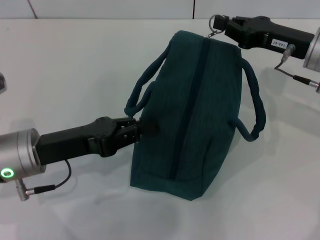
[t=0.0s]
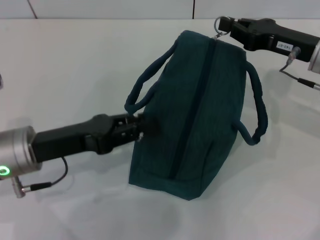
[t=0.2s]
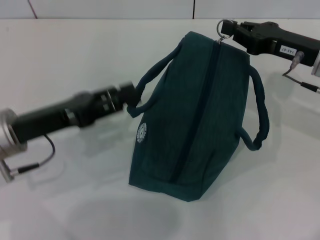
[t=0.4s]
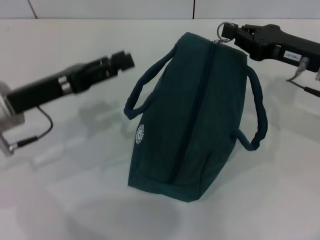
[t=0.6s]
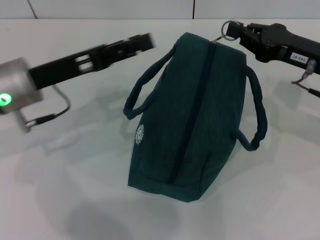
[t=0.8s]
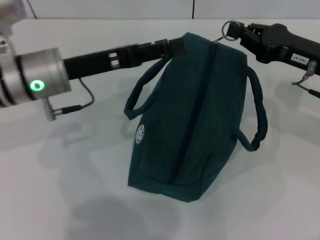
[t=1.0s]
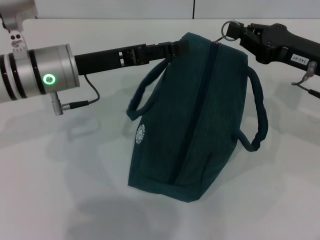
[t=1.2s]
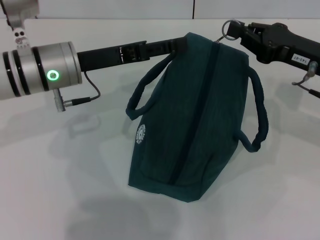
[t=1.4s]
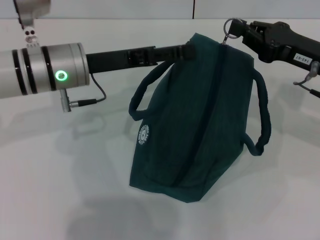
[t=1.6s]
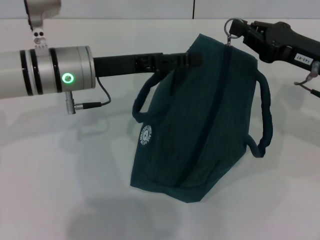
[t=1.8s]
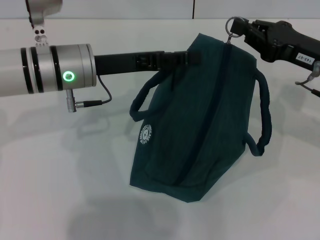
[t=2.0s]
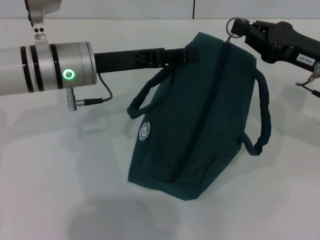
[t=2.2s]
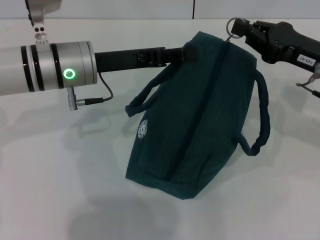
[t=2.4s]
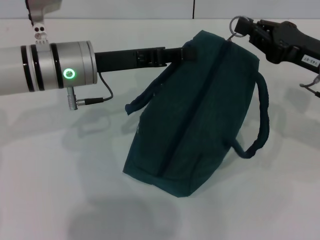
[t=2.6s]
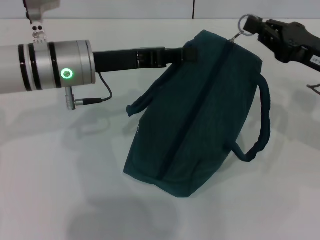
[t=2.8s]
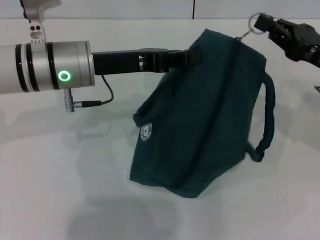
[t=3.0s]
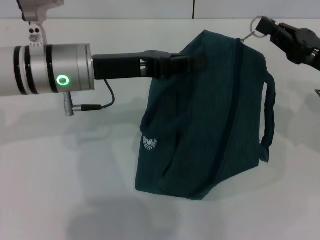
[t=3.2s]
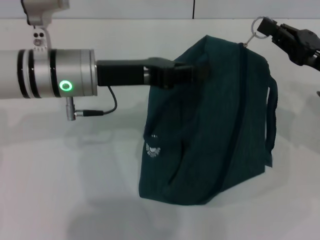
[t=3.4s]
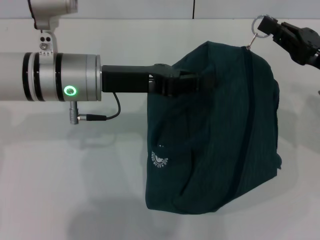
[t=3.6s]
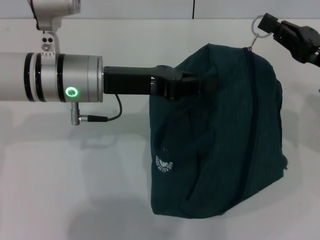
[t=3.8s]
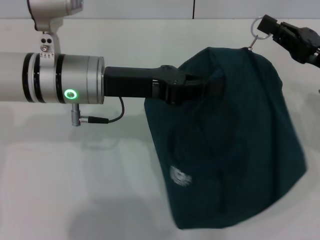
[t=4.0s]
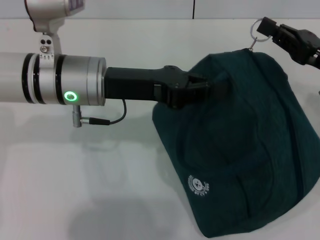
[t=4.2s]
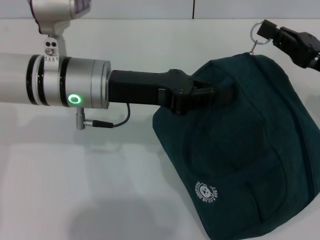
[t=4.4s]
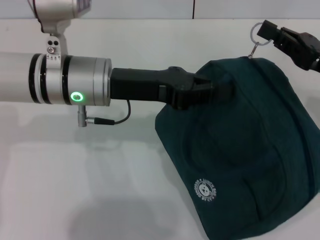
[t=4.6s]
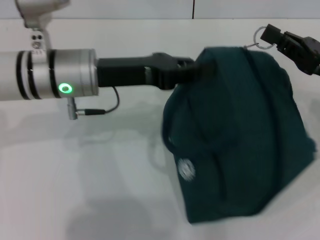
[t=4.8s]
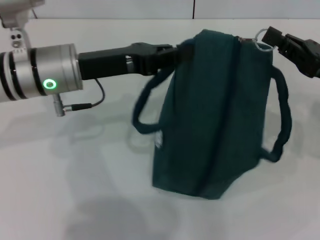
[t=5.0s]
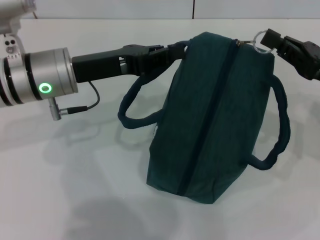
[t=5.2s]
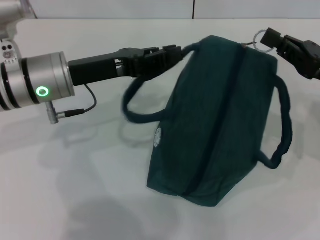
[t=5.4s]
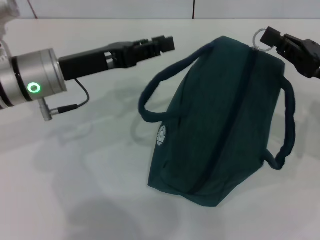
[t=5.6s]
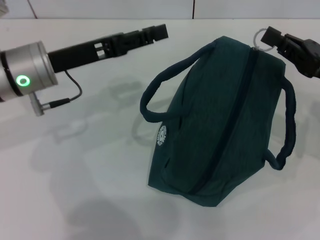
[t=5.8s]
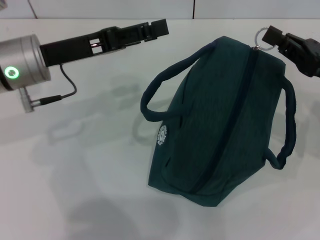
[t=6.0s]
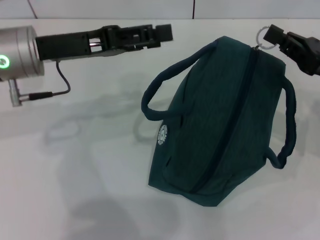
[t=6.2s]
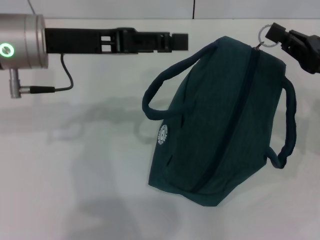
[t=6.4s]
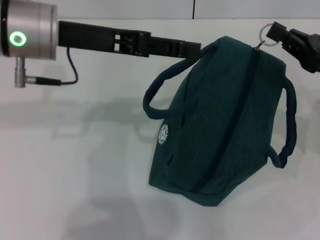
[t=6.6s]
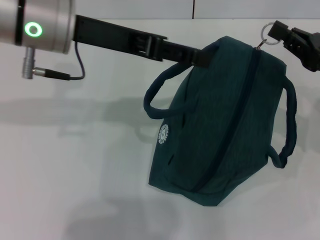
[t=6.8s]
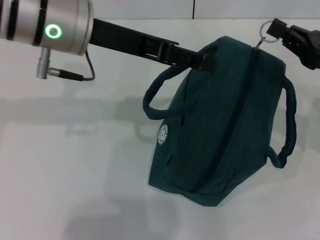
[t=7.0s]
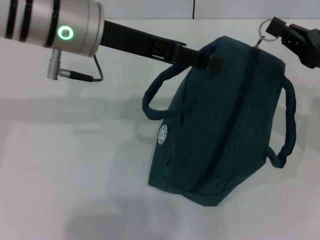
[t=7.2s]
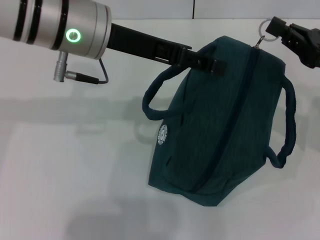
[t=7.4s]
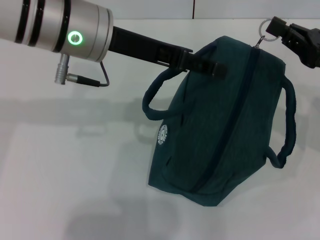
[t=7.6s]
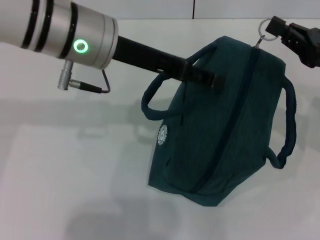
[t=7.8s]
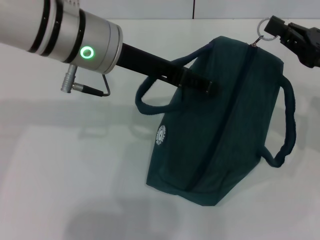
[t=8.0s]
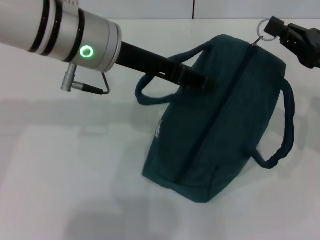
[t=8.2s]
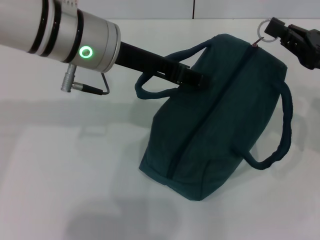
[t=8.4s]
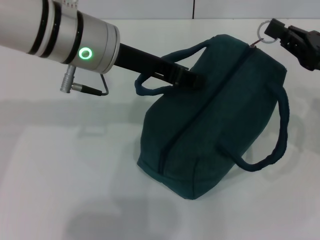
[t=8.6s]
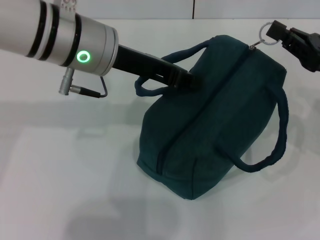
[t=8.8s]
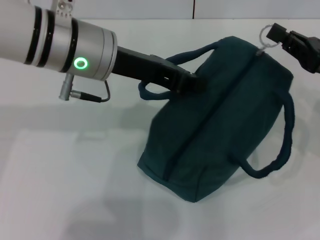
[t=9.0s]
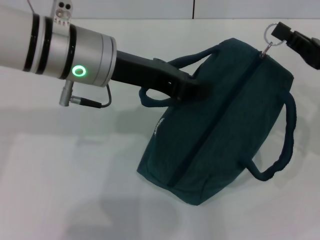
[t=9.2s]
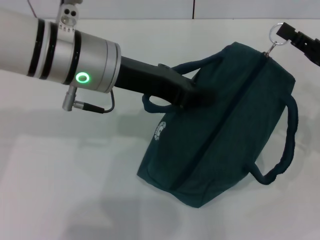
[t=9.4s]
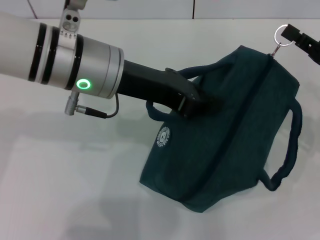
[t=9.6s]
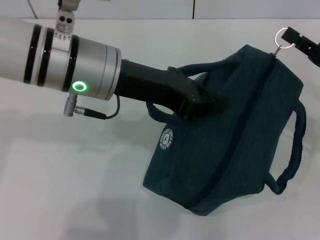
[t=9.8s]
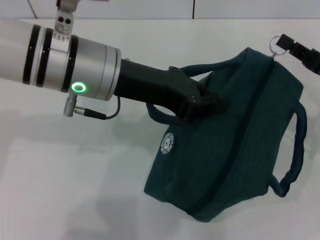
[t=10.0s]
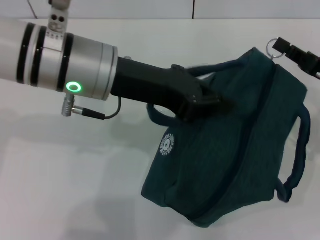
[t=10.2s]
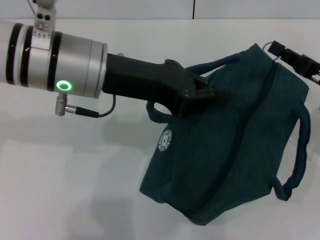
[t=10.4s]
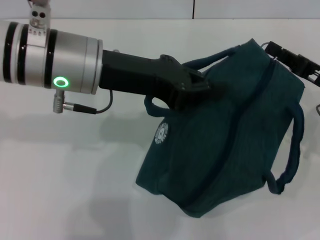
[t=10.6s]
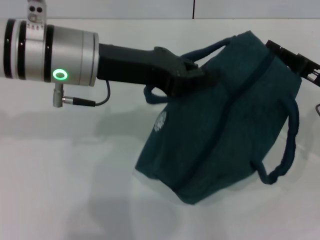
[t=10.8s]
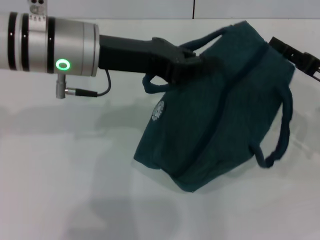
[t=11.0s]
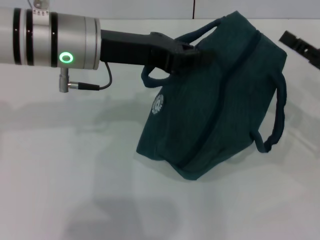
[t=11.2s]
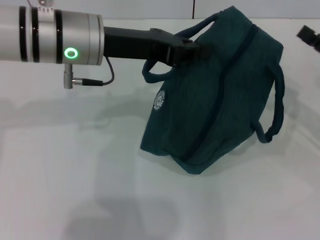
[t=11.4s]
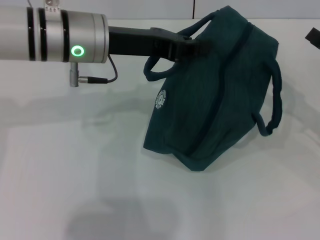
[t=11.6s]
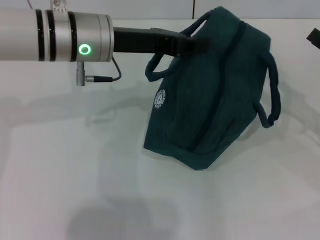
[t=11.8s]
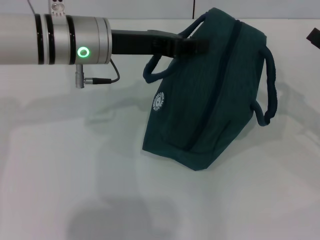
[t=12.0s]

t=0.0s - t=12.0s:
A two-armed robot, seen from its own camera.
Step, t=0.0s - t=11.0s: Zip up the lunch bag with your right hand.
t=0.0s - t=1.6s: The left gripper is displaced forward and to the right by roughly 10 cm, and opens up.
t=1.6s - t=3.0s: The left gripper closes.
t=4.4s - t=6.0s: The left gripper heads to the left, covering approximately 10 cm, and opens.
t=6.0s - t=7.6s: The left gripper is displaced to the right and upward by about 10 cm.
t=7.6s - t=9.0s: The left gripper closes up.
t=10.4s - t=12.0s: The right gripper shifts by approximately 5 cm, and opens. Meanwhile the left gripper is displaced forward by approximately 5 cm.

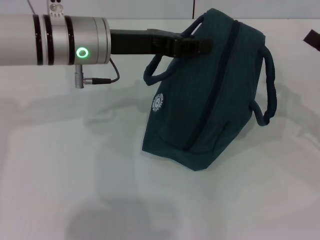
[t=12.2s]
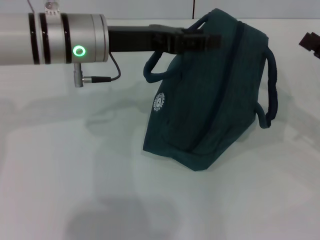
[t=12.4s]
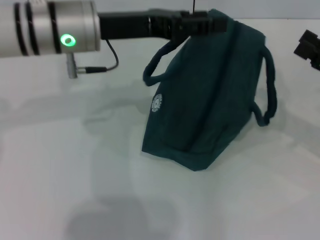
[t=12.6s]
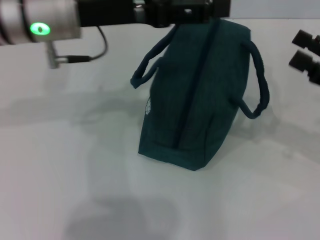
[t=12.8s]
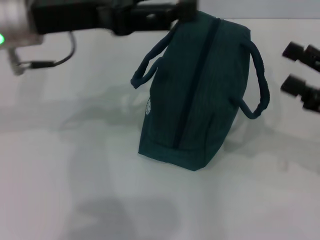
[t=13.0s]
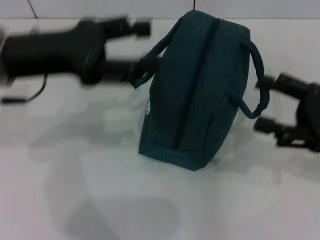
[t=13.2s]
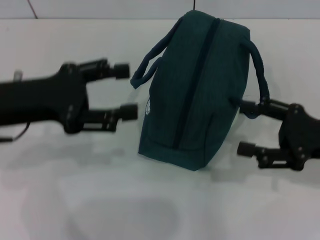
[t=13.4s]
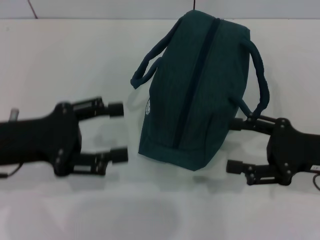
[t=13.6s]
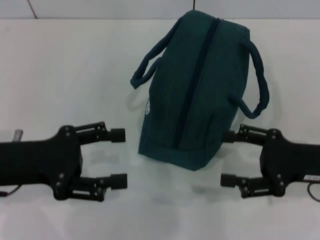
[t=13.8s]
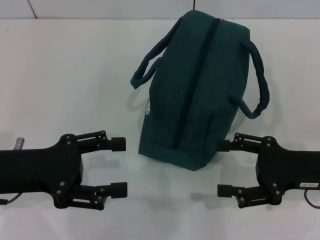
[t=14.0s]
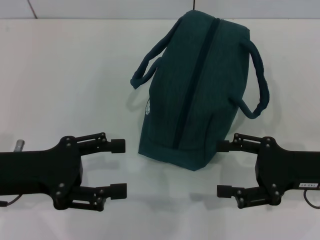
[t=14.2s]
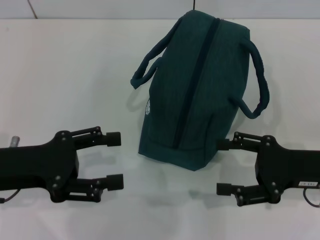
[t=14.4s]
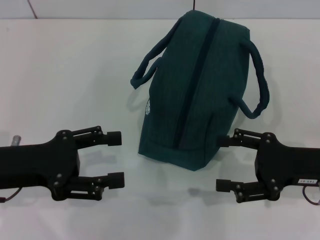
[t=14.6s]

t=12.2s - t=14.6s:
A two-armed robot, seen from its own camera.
t=12.2s - t=13.4s: The right gripper moves to the left, roughly 5 cm. The left gripper goes about 15 cm to the left and backward, and opens its fingers.
t=13.4s - t=14.6s: The left gripper travels downward by roughly 5 cm.
